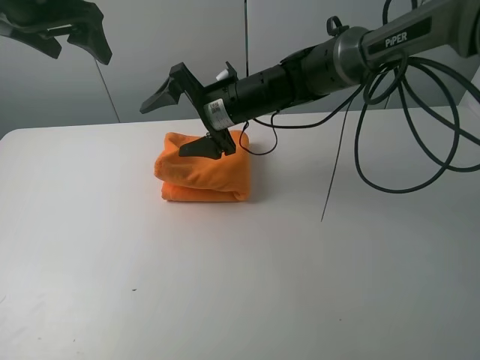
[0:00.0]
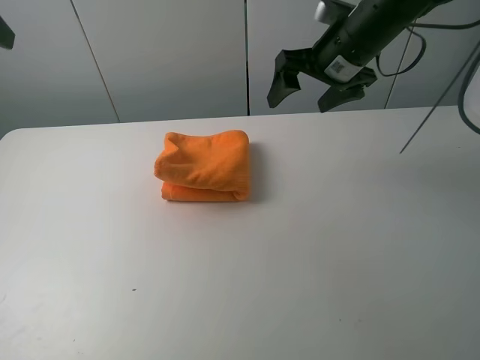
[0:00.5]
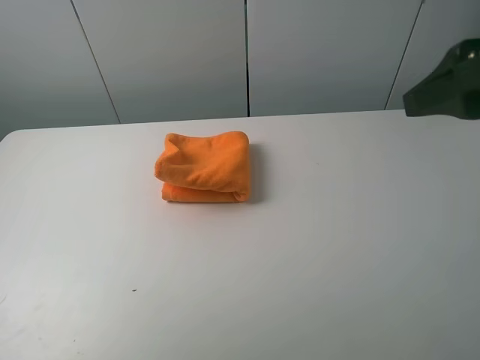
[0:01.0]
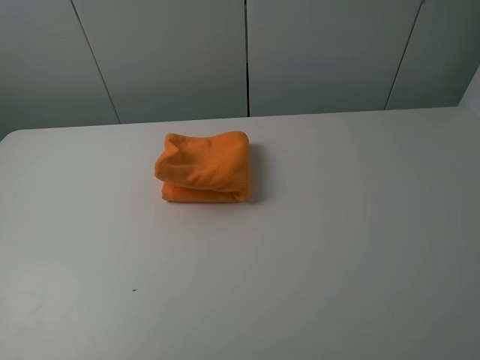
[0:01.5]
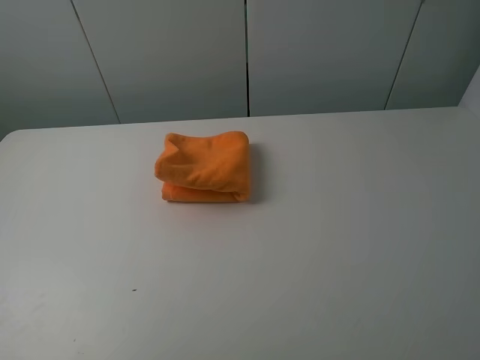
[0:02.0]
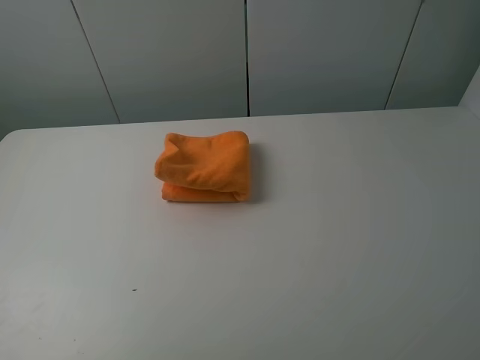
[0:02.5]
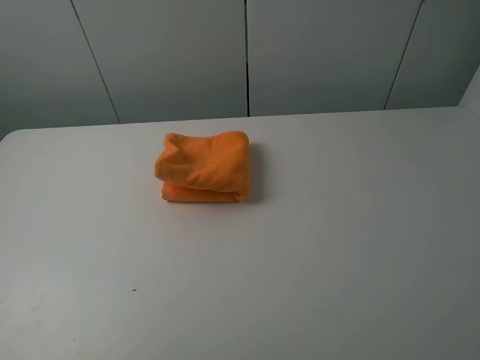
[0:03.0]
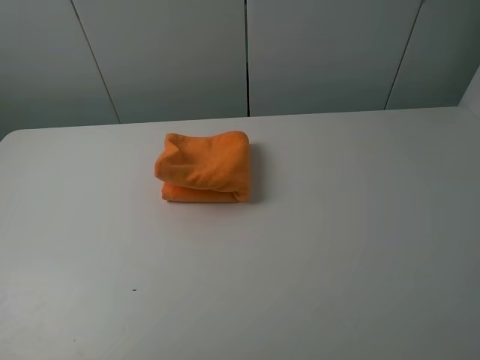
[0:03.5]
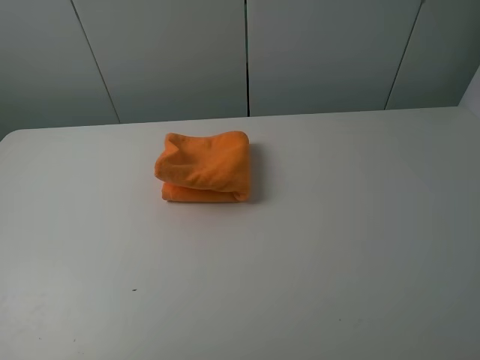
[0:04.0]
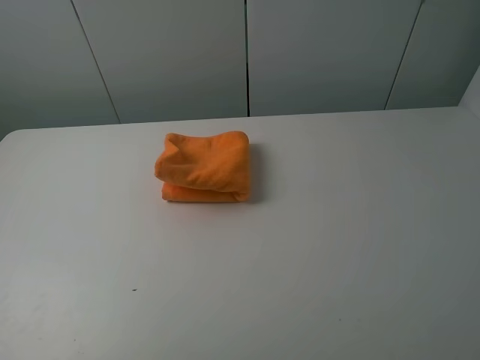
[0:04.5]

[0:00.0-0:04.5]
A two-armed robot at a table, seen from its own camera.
Task of the whole recording: fold the towels on the table.
0:00.0 to 0:02.0: The right gripper shifts about 50 cm backward and to the right, while the left gripper heads backward, covering approximately 35 cm.
